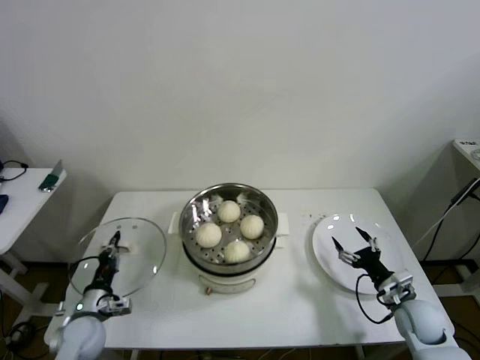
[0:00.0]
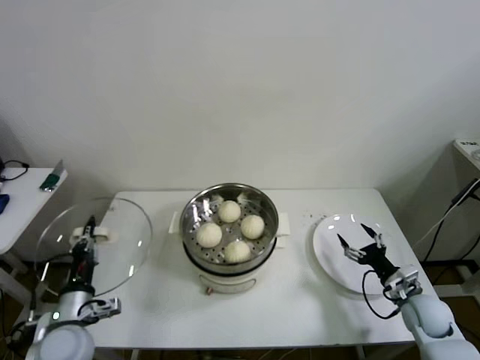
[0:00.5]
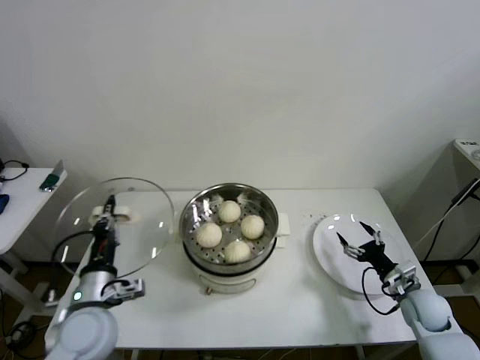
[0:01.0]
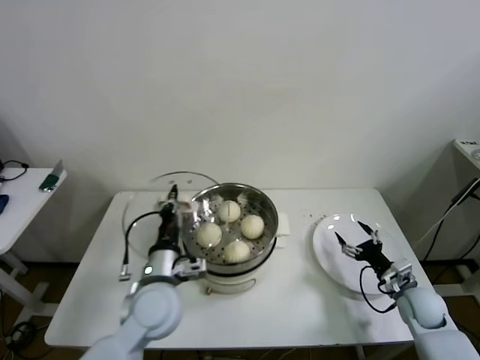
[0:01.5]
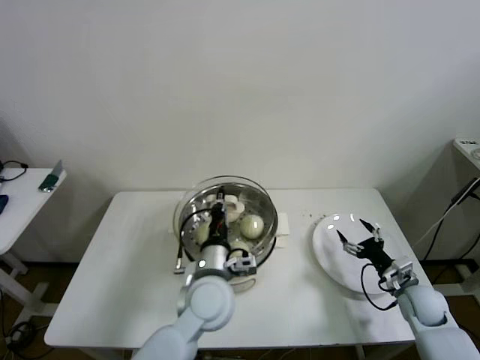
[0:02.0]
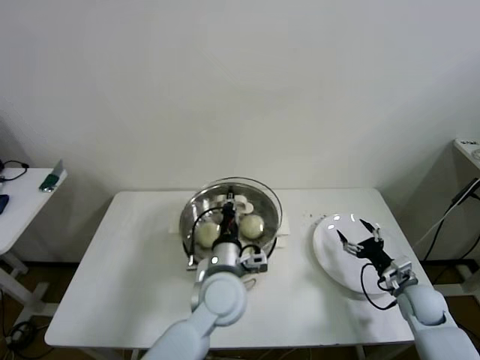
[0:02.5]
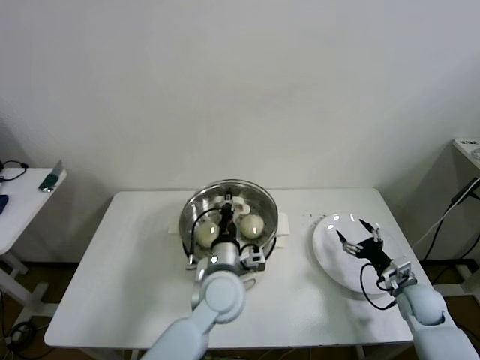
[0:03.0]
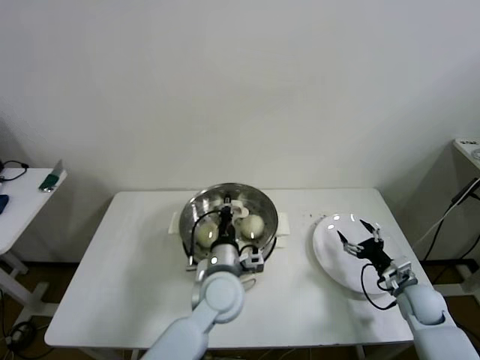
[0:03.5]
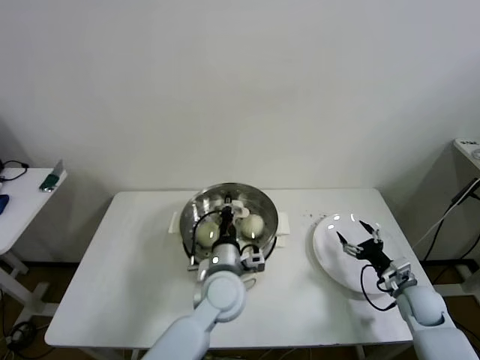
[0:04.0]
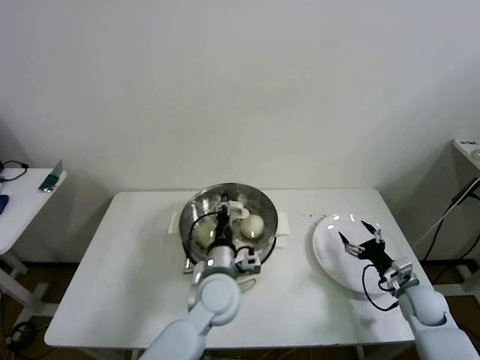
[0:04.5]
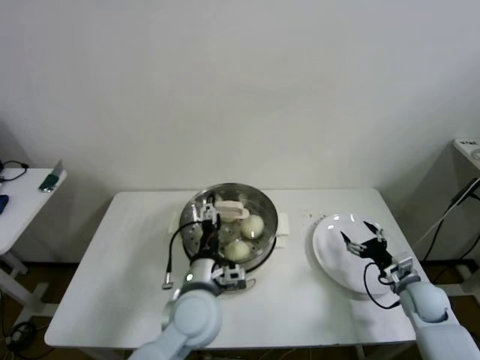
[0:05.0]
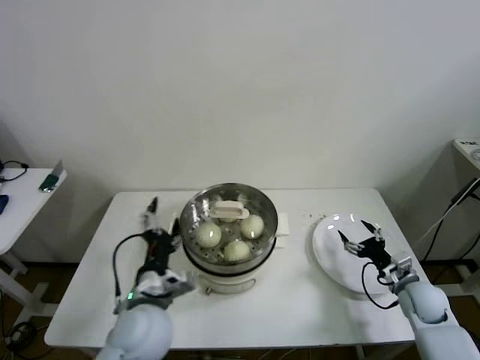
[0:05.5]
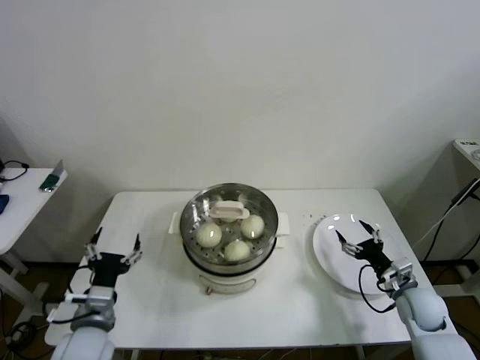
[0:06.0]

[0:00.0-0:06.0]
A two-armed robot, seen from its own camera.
Step, 0:00.0 to 0:05.0: Place the pot lid on the steamer with left gripper.
0:00.0 to 0:02.0: The left gripper goes about 35 cm to the right and upward.
0:02.0 to 0:04.0: The grippers stay close to where they were, moving slightly.
0:04.0 to 0:06.0: The left gripper moves to the left and backward, approximately 25 cm, and opens its fingers.

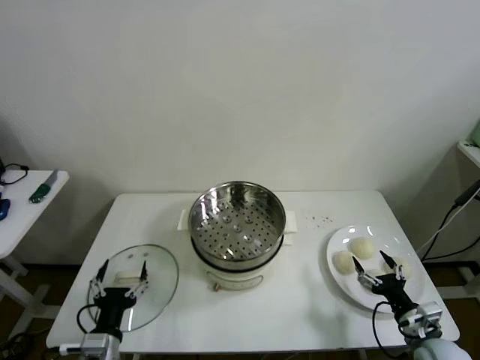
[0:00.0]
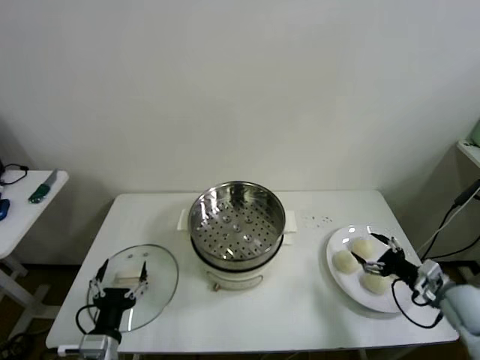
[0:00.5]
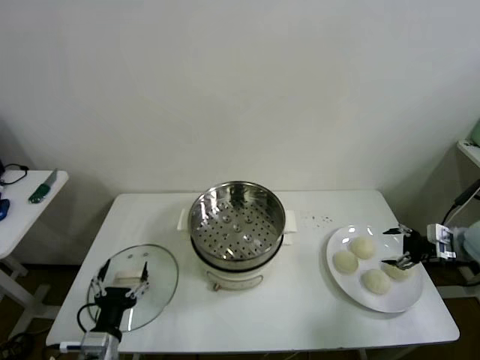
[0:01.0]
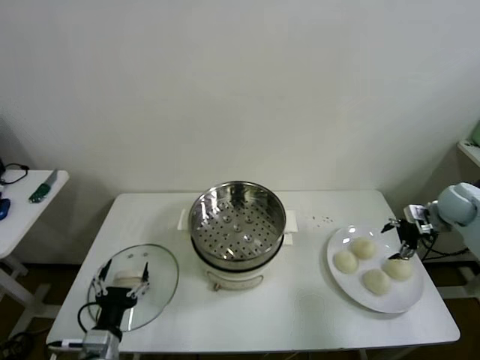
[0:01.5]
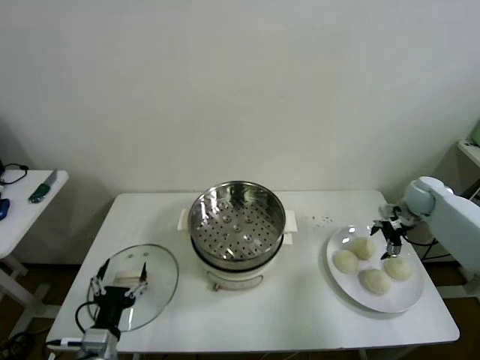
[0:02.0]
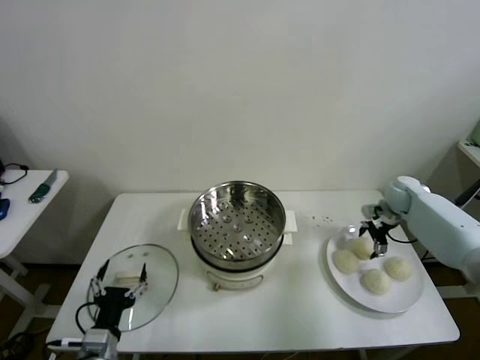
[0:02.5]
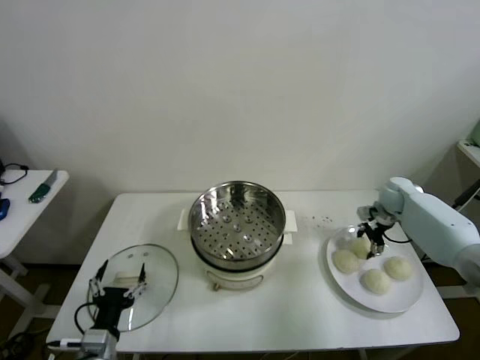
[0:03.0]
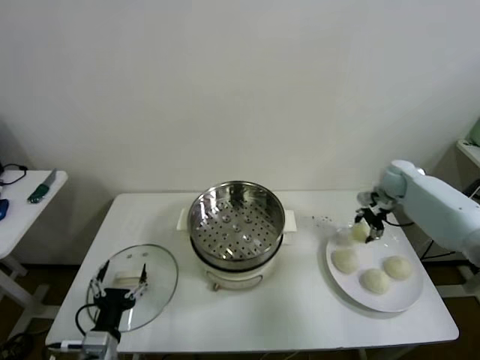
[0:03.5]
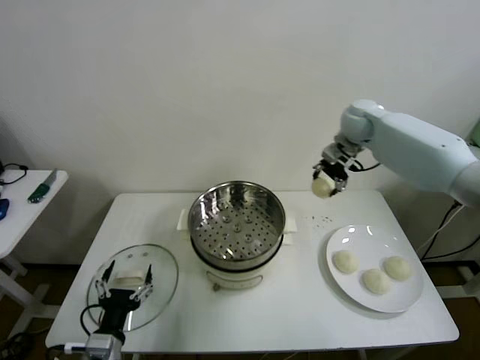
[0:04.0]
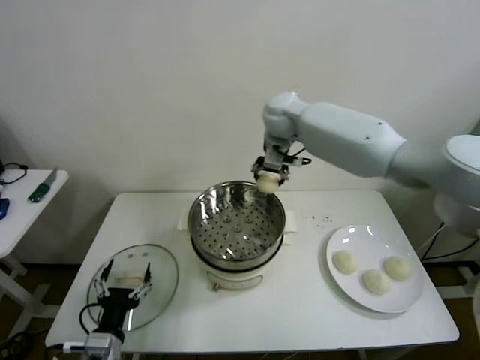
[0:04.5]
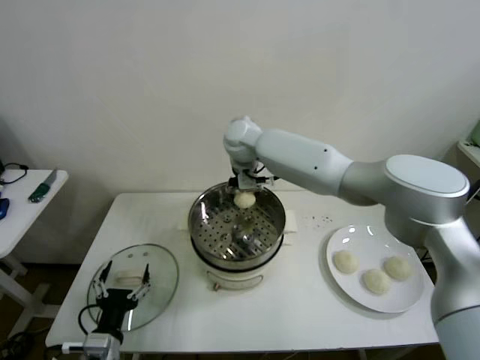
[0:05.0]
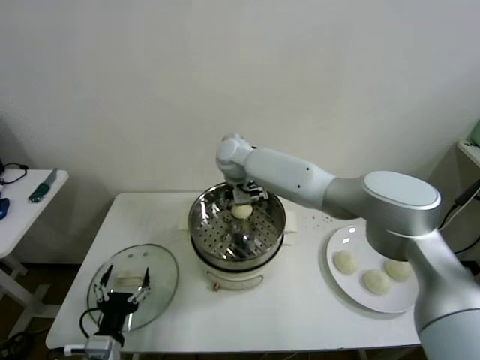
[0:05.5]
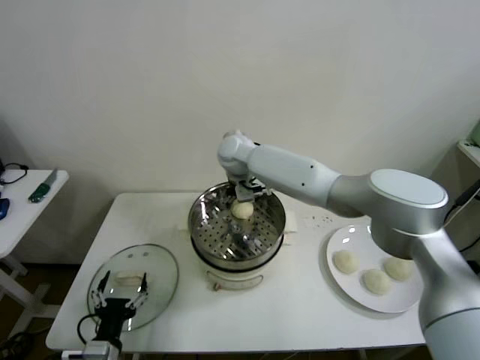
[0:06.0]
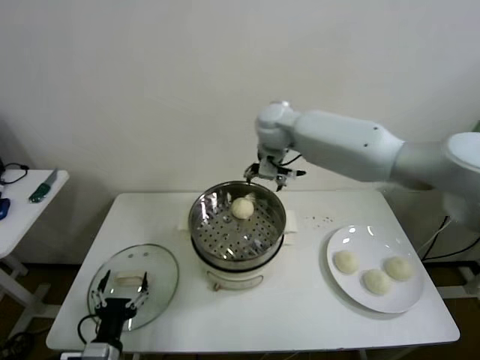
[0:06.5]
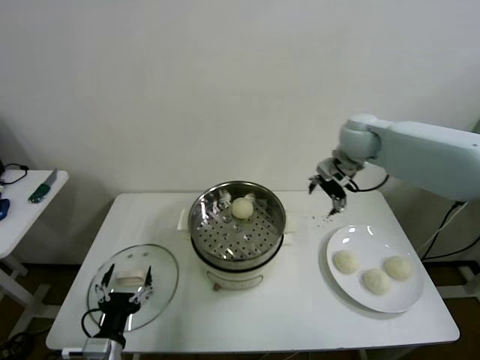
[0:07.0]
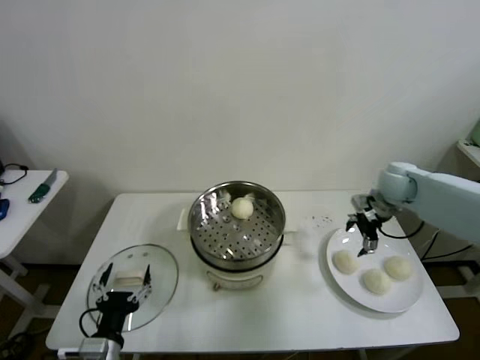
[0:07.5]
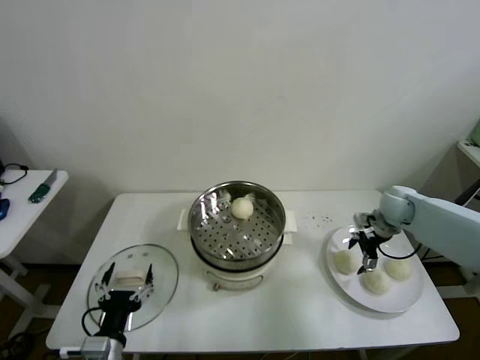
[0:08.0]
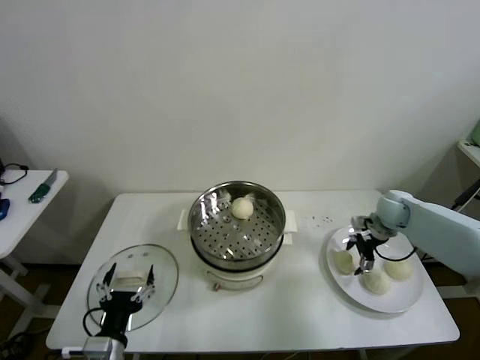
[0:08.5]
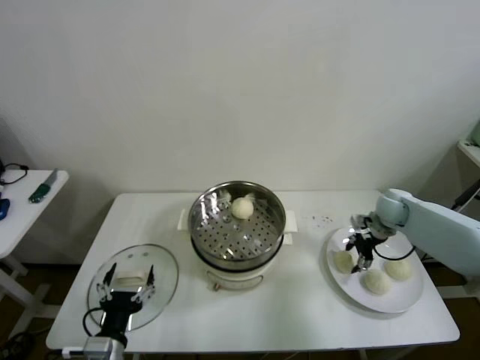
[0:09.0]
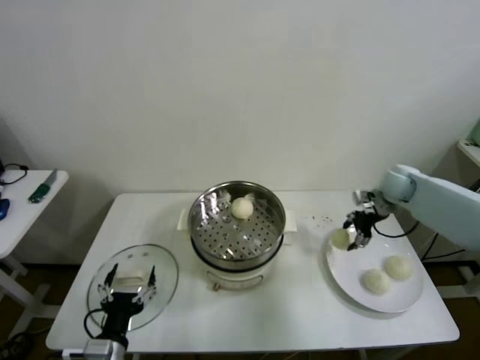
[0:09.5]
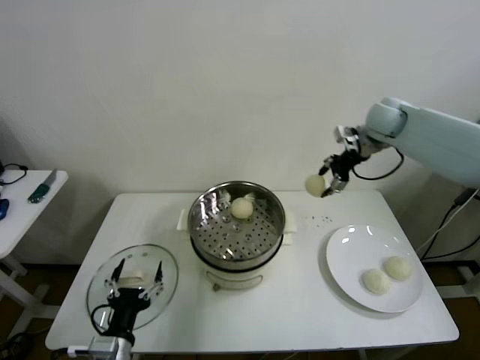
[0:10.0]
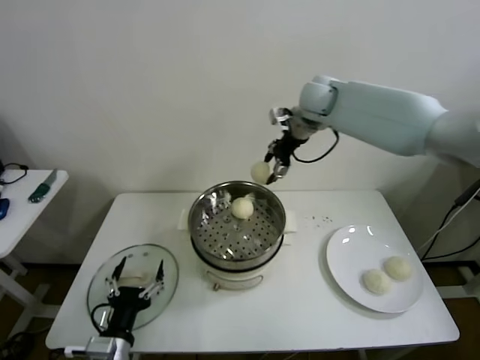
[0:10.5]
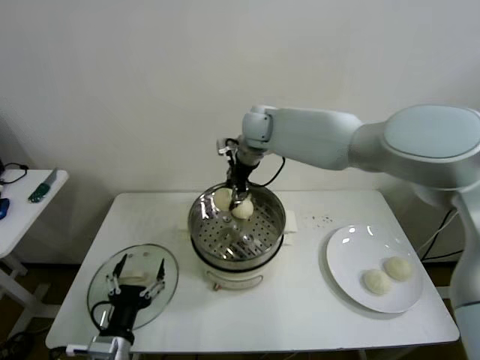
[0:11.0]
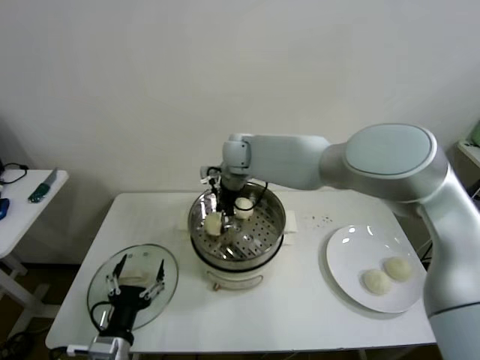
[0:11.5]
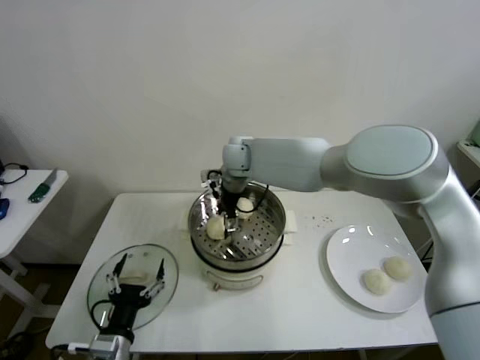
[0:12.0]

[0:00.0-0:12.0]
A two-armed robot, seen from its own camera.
Step, 0:00.0 to 0:03.0: Grasp the baozi in the plate with right gripper.
Step, 0:03.5 to 0:05.5: Place the baozi on the steamer with right gripper.
Step, 0:06.0 to 0:08.5: Grasp the baozi in the plate with right gripper.
Step, 0:09.0 to 0:12.0: Place the baozi on the steamer with right gripper.
0:02.0 to 0:04.0: The right gripper heads to the left and upward, covering approximately 30 cm, and closes its fingers.
0:04.0 to 0:06.0: The right gripper travels to the left by some 25 cm, and opens.
0:06.0 to 0:08.0: The right gripper shifts about 40 cm to the right.
0:08.0 to 0:10.0: The right gripper travels upward by approximately 20 cm, and closes.
0:10.0 to 0:12.0: The right gripper goes roughly 30 cm to the left, and opens up.

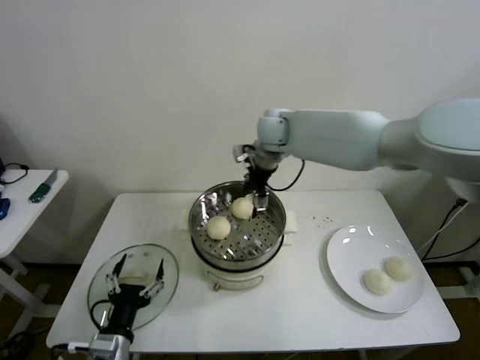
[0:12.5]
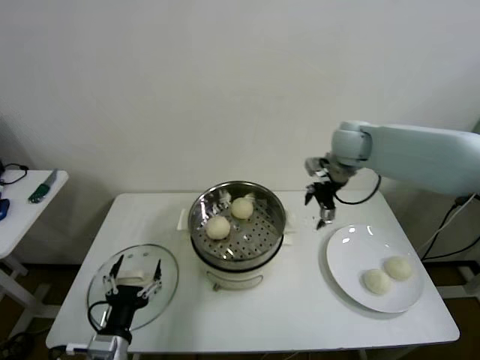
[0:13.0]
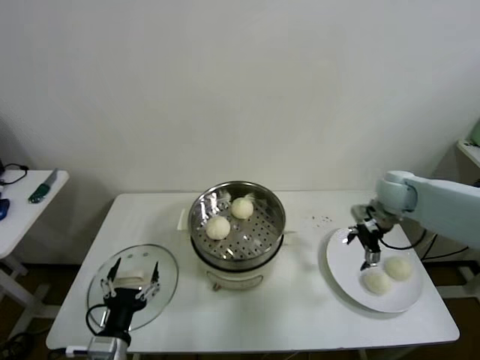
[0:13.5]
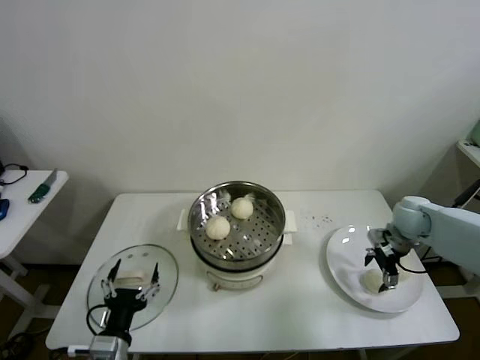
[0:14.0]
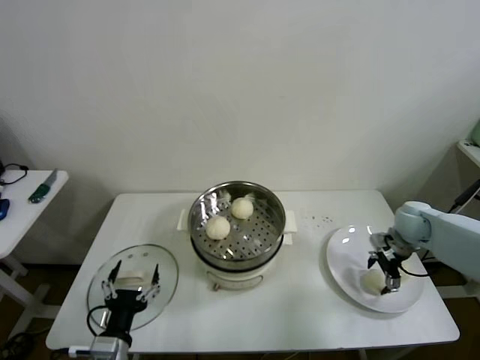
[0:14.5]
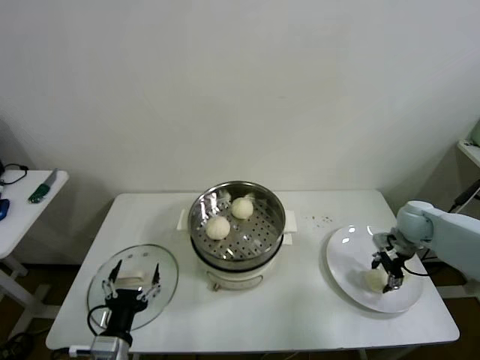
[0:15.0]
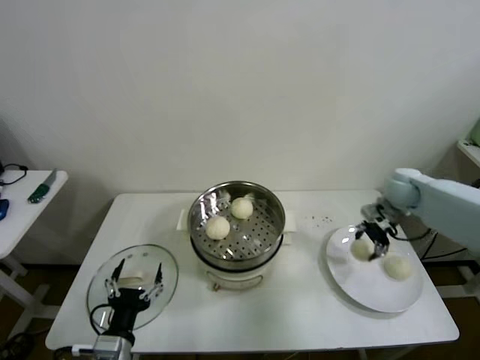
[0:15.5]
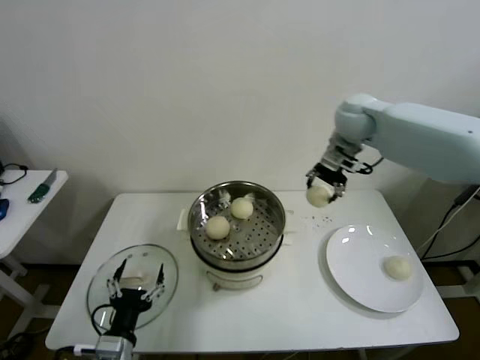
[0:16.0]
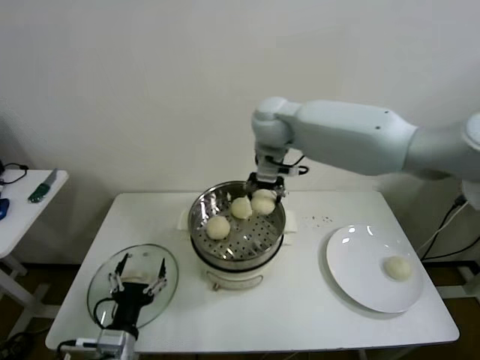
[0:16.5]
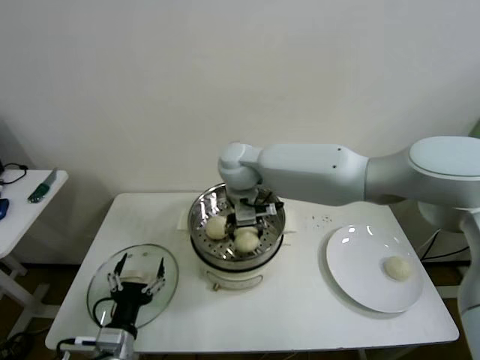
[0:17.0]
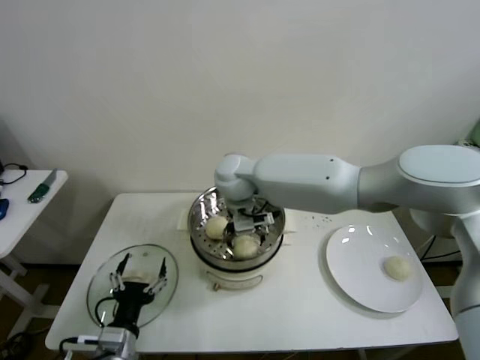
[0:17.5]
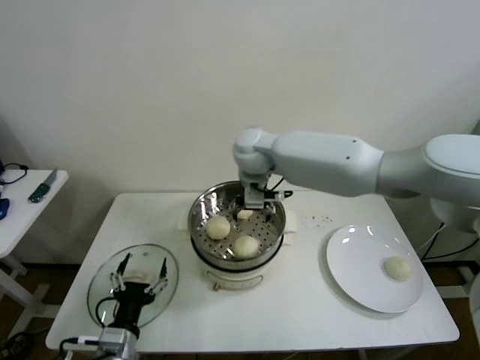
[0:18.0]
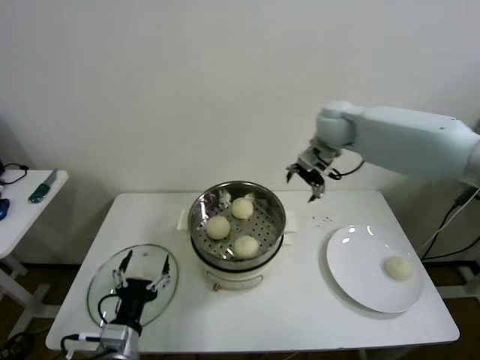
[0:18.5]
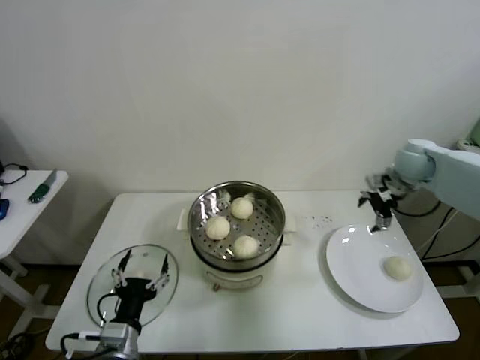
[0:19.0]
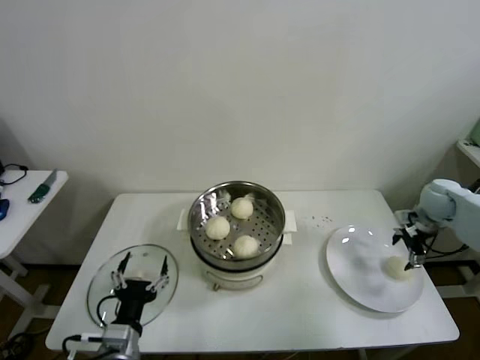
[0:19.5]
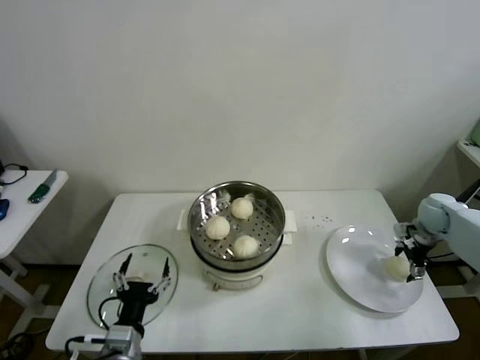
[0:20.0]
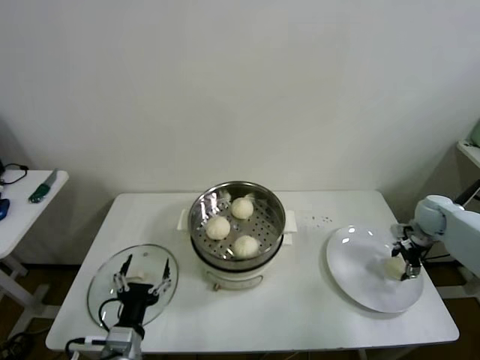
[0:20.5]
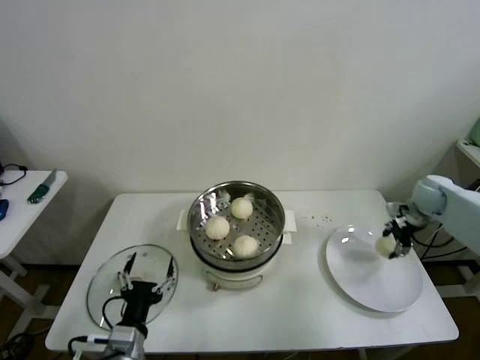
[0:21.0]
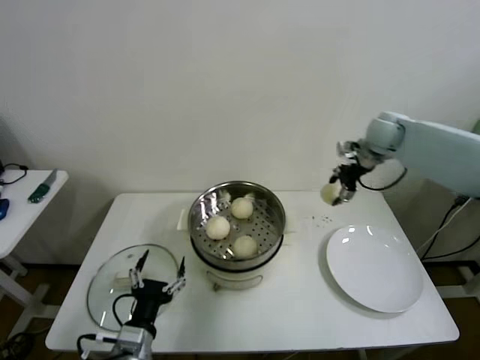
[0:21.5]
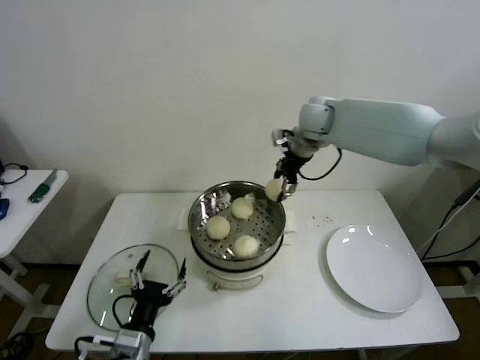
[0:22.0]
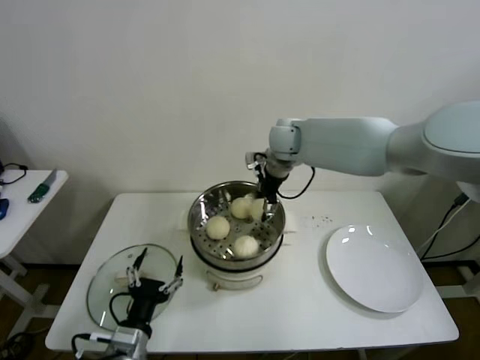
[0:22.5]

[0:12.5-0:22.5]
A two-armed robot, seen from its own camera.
Step, 0:12.5 to 0:14.5: Grasp the baozi in the plate with right gripper.
Step, 0:15.0 to 0:17.5: Place the baozi on the steamer with right gripper.
Step, 0:18.0 to 0:20.5: Grasp the baozi in the plate with right gripper.
0:12.5 to 0:14.5: The right gripper is displaced to the right and downward by some 40 cm.
0:14.5 to 0:16.5: The right gripper moves to the left and upward, approximately 40 cm, and closes its fingers.
0:16.5 to 0:18.5: The right gripper travels to the right by roughly 15 cm, and opens.
0:18.5 to 0:20.5: The right gripper moves to the right and downward, some 35 cm, and closes.
0:20.5 to 0:22.5: The right gripper goes approximately 40 cm to the left and upward.
